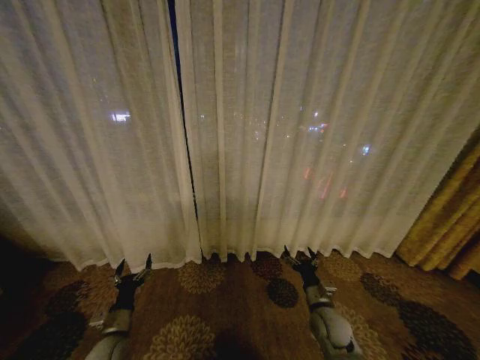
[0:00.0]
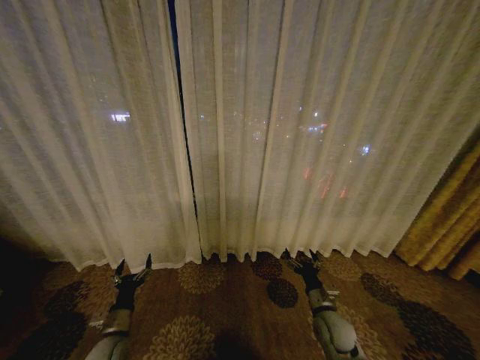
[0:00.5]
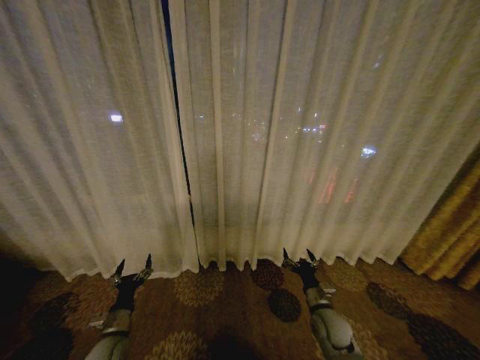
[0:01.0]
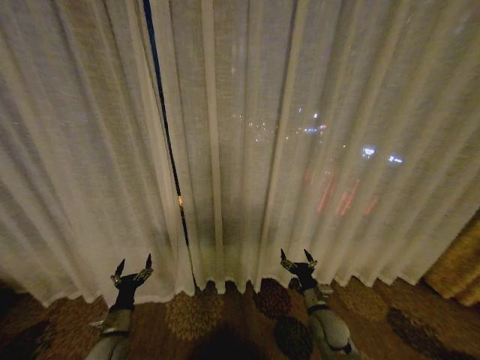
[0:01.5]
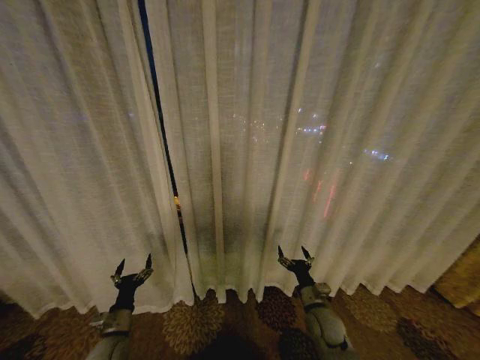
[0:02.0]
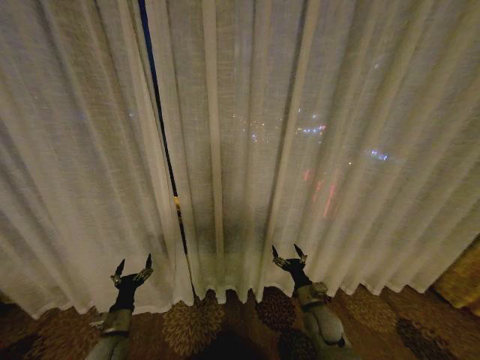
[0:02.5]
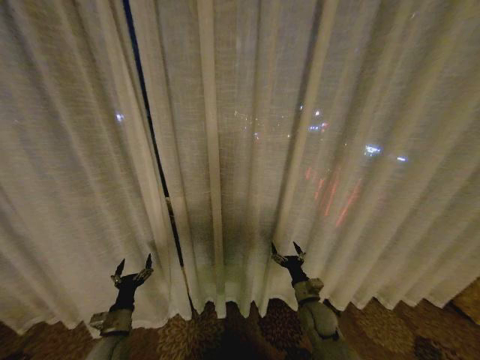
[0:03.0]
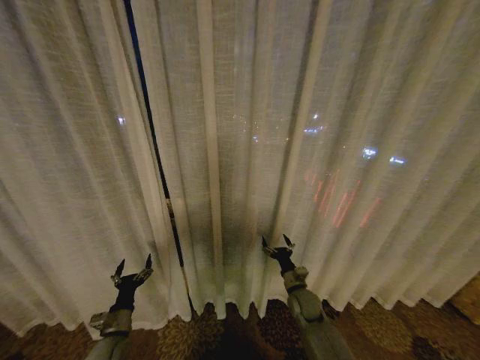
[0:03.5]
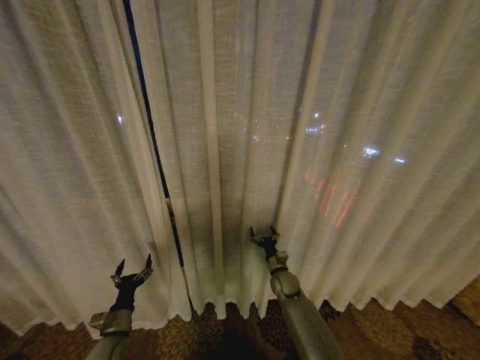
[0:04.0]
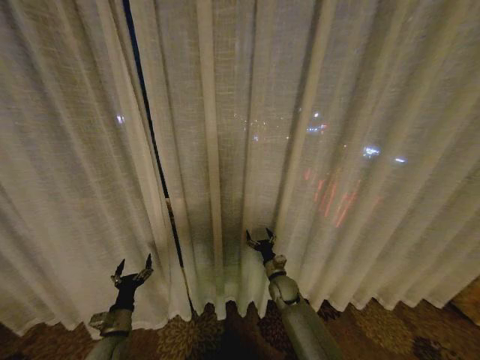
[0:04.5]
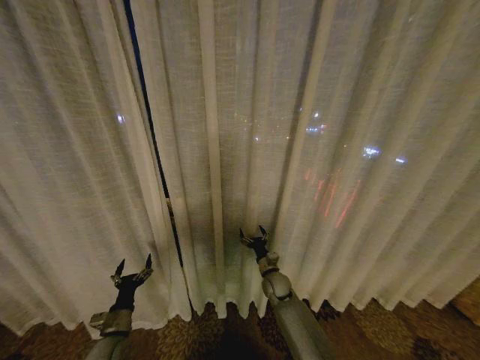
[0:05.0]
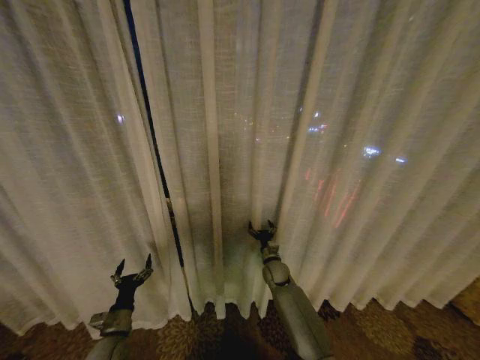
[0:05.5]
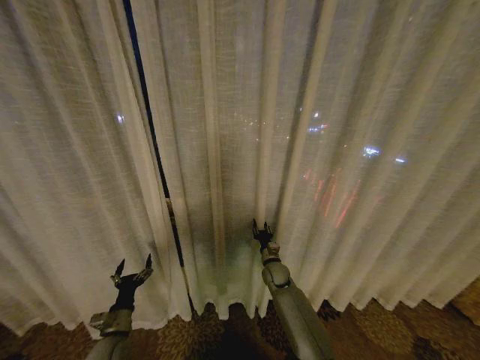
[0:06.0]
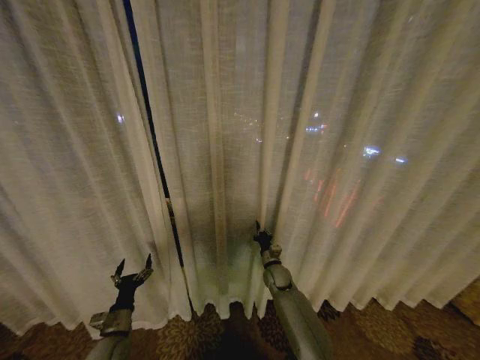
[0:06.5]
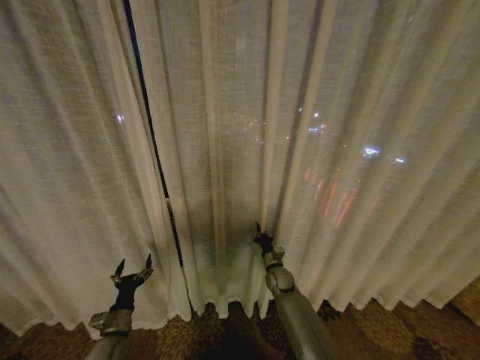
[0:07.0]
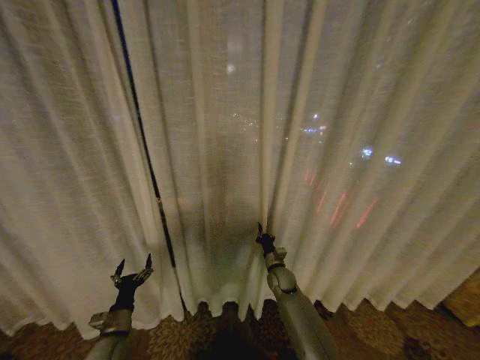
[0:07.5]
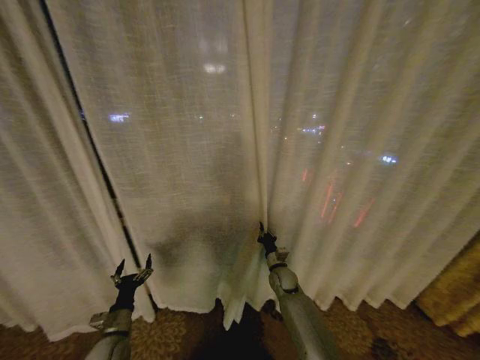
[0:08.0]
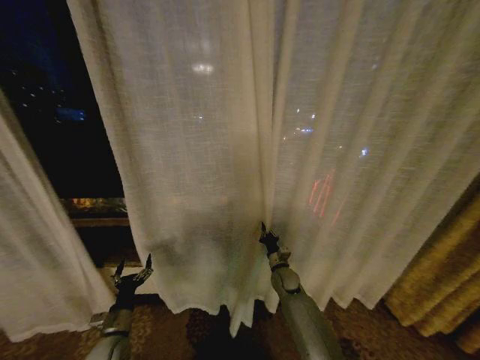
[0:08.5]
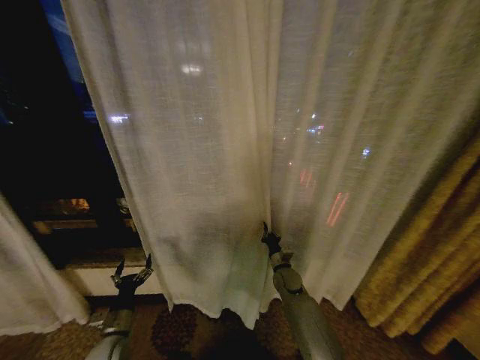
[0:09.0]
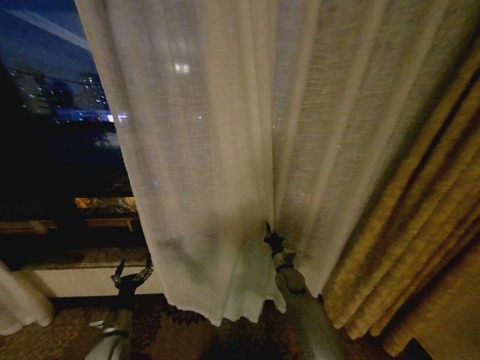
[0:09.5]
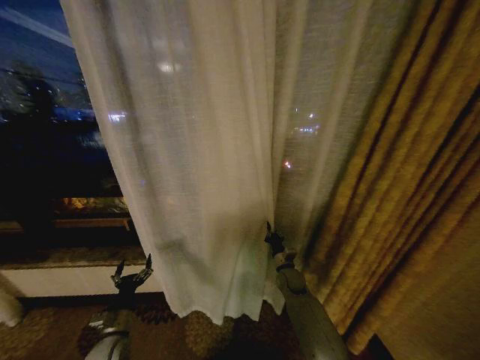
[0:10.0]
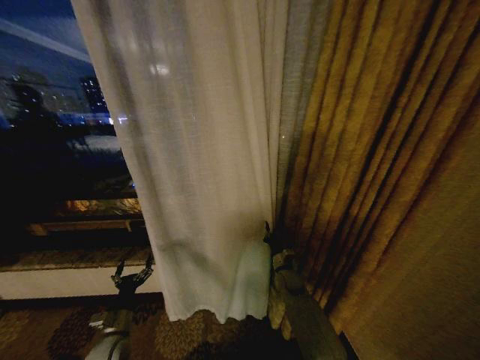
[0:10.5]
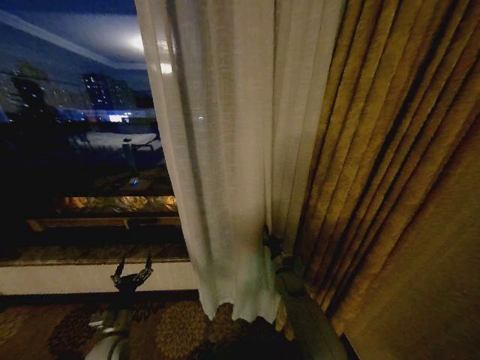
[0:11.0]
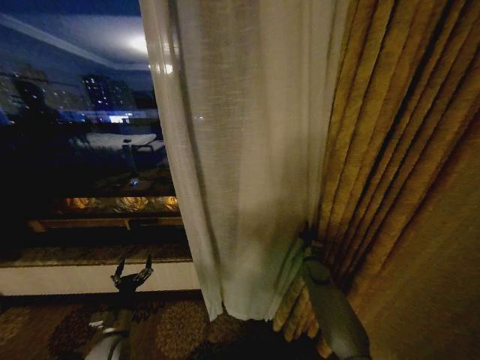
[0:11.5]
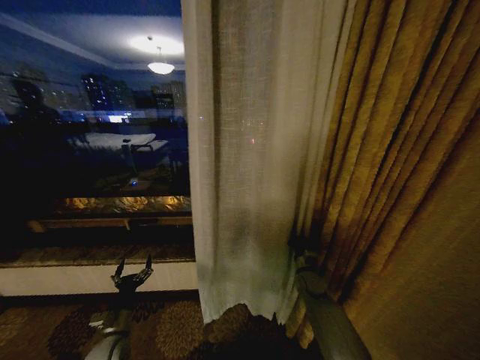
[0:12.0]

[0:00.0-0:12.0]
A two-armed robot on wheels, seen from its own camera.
Task of the whole recording: Open the curtains by pulling them apart, changing their state from closed to fully open.
0:02.0 to 0:04.0: The right gripper shifts some 15 cm forward and to the left.
0:04.0 to 0:06.0: The right gripper closes.
0:06.0 to 0:08.0: The right gripper closes.
0:10.0 to 0:12.0: The right gripper is displaced to the right by roughly 5 cm.

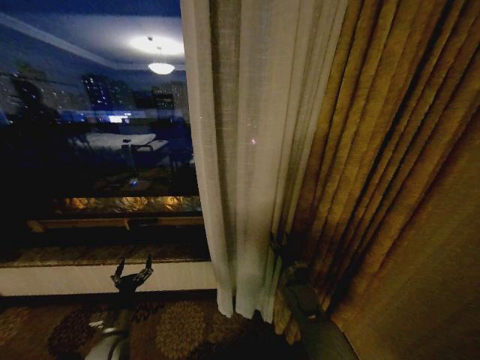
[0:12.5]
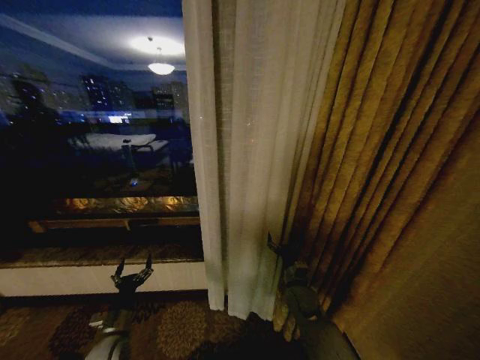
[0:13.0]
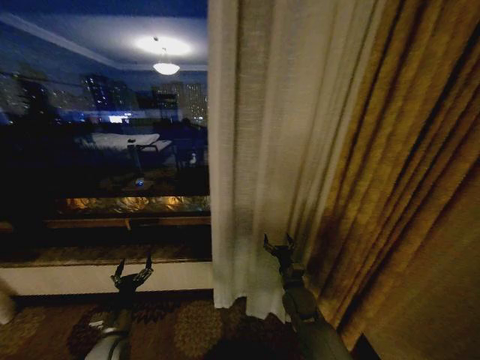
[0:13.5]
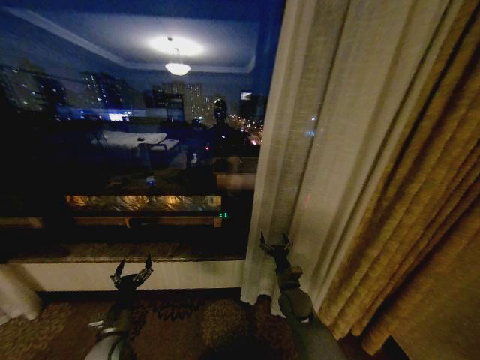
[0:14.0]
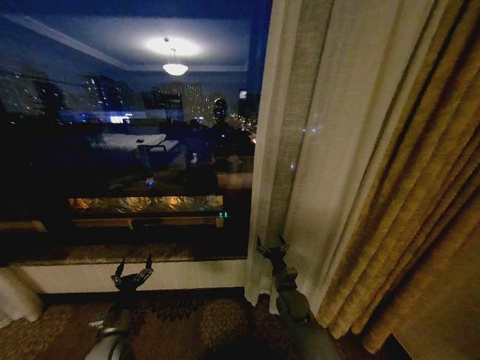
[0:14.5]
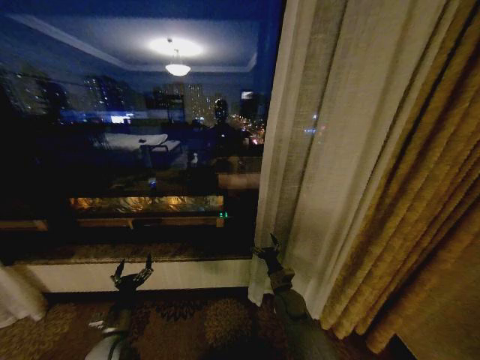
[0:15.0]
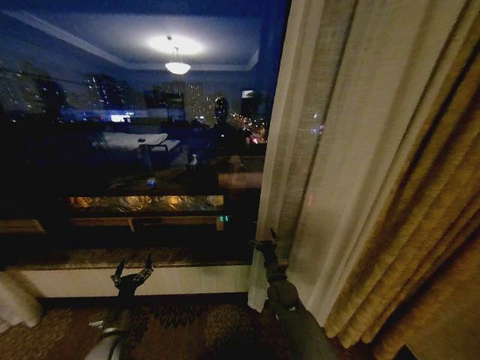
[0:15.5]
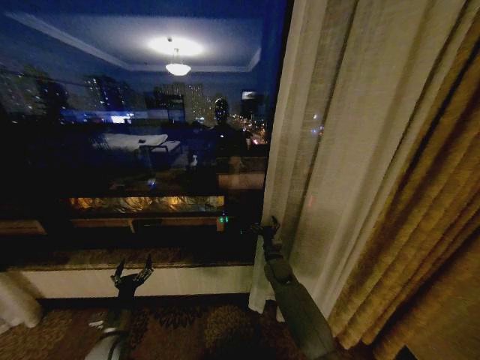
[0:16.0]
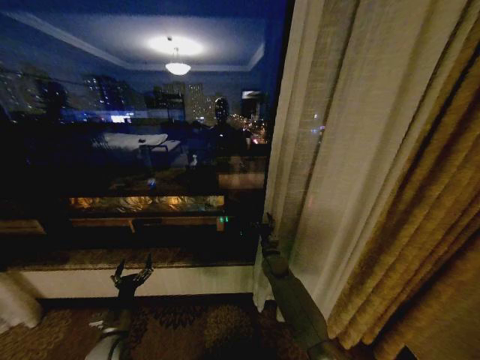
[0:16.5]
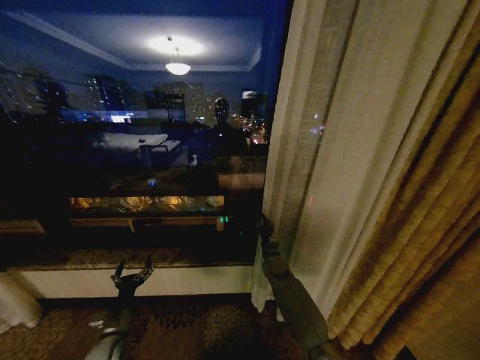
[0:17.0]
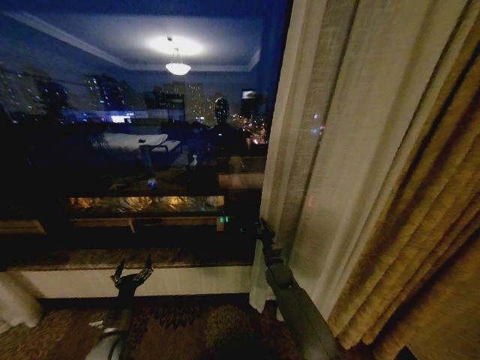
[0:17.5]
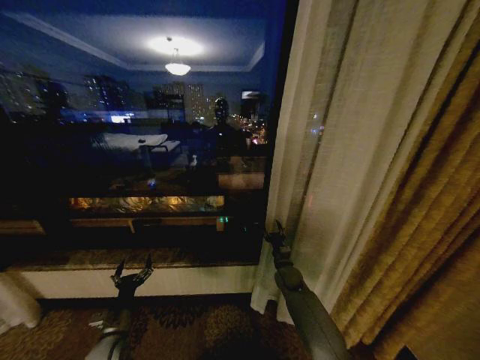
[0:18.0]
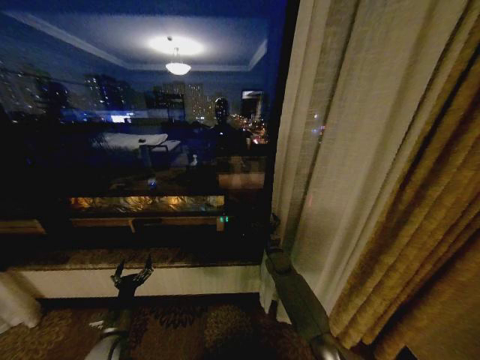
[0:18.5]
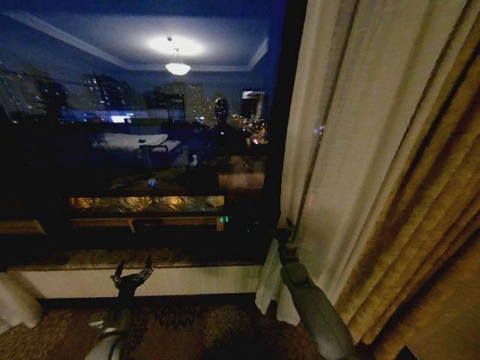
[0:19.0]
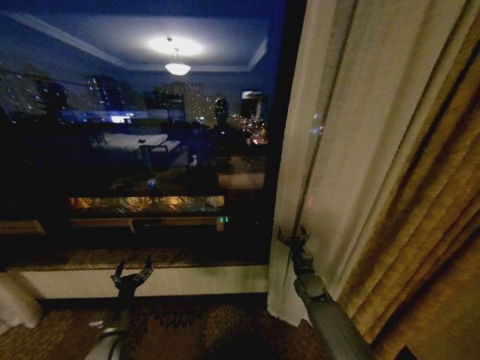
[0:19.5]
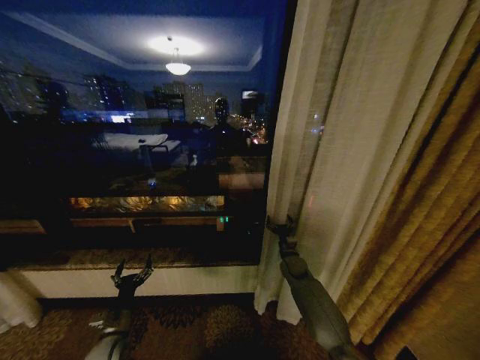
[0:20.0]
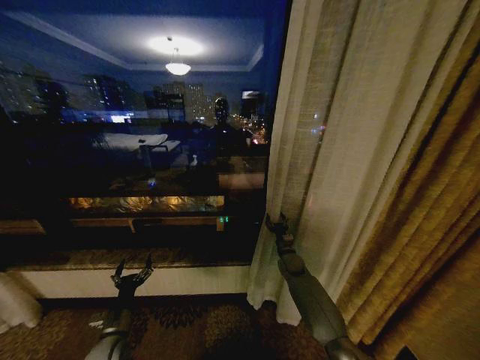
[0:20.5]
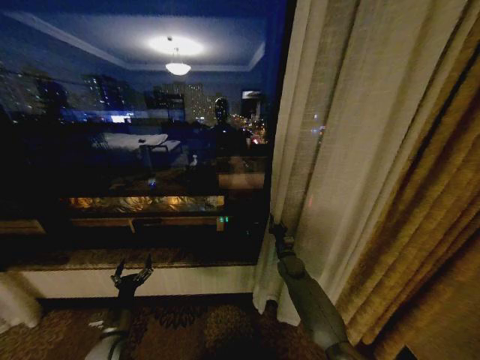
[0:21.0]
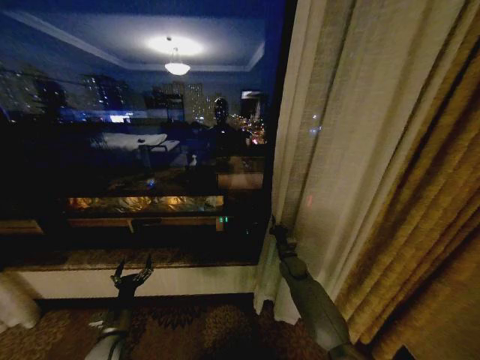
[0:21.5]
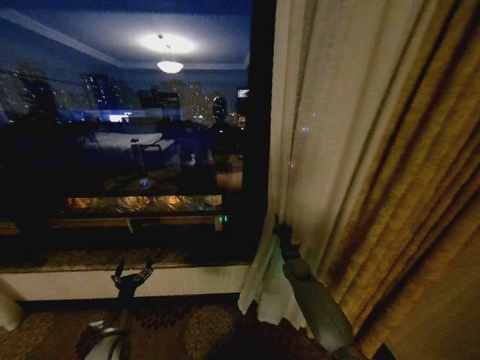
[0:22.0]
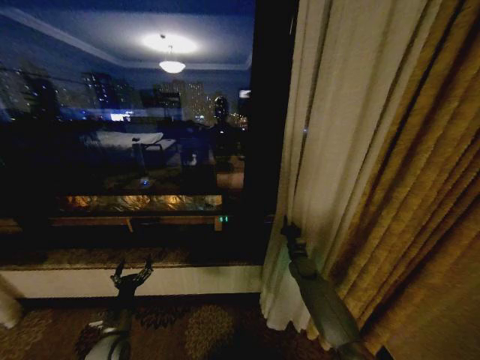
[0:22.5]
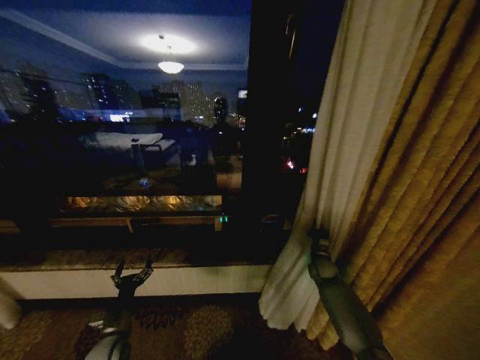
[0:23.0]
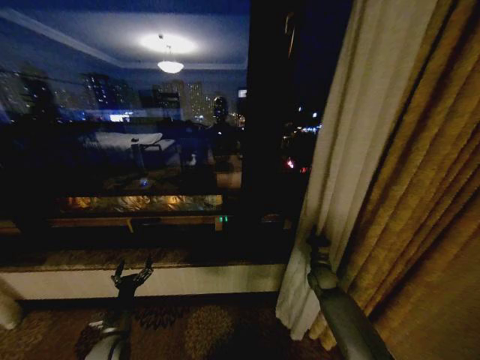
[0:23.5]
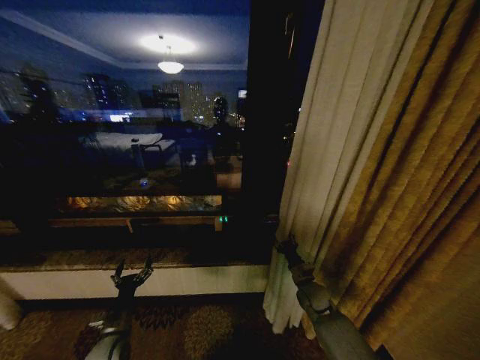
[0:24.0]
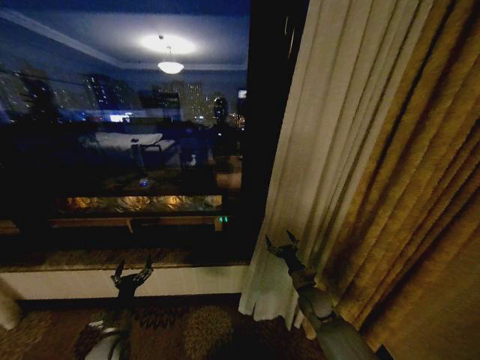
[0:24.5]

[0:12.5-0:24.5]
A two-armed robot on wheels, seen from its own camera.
Task of the whole recording: Open the curtains by pulling them apart, changing their state from closed to fully open.
0:12.5 to 0:14.5: The right gripper opens its fingers.
0:14.5 to 0:16.5: The right gripper moves forward, approximately 15 cm.
0:16.5 to 0:18.5: The right gripper closes, then opens again.
0:20.5 to 0:22.5: The right gripper closes.
0:22.5 to 0:24.5: The right gripper shifts about 15 cm backward, and opens its fingers.

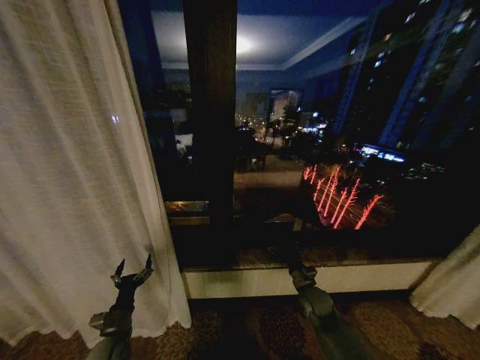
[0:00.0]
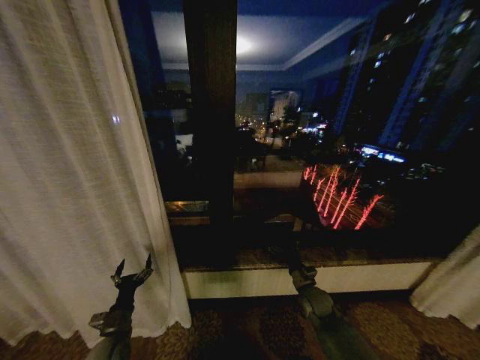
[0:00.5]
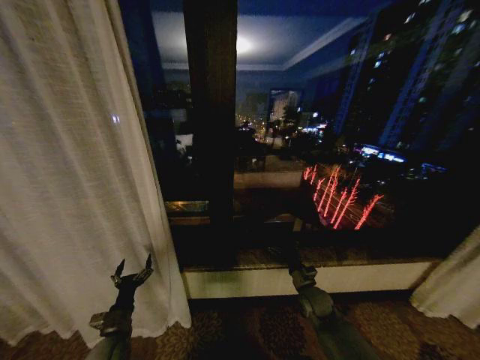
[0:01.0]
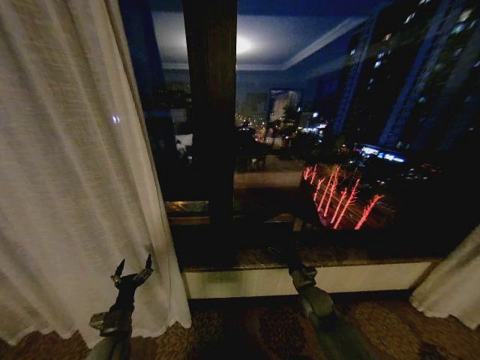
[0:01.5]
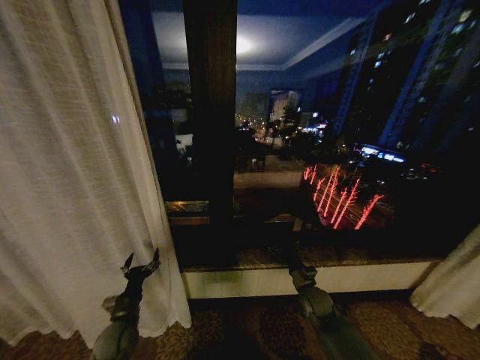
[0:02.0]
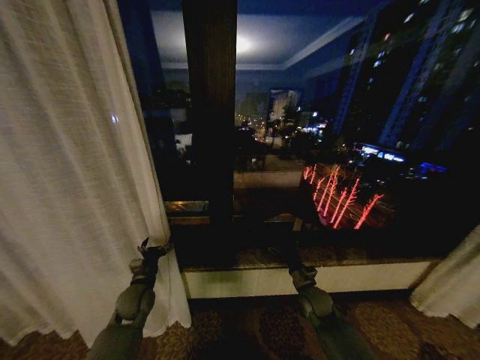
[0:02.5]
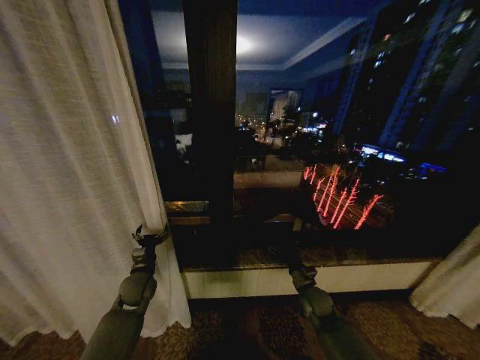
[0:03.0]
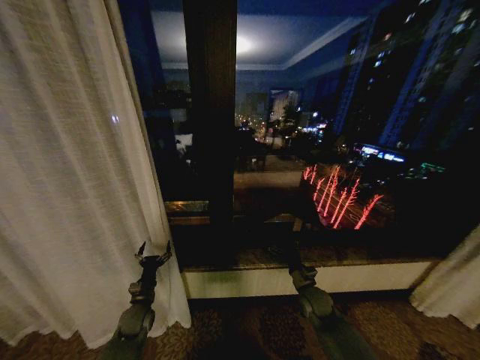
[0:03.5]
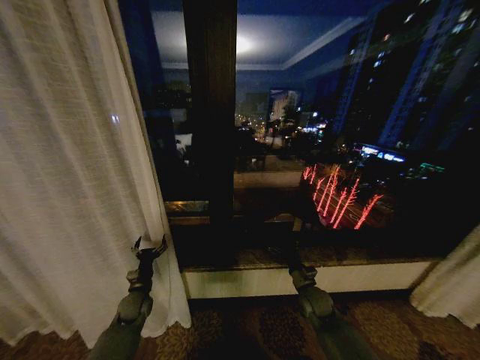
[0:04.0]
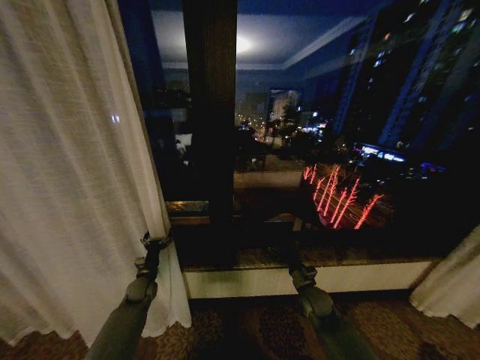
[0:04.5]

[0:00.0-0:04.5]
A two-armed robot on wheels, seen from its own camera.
Task of the whole recording: Open the curtains by pulling them apart, changing their state from closed to fully open.
0:00.0 to 0:02.0: There are only small adjustments of the grippers.
0:02.0 to 0:04.5: The left gripper moves forward and backward over some 15 cm, changing direction 2 times.
